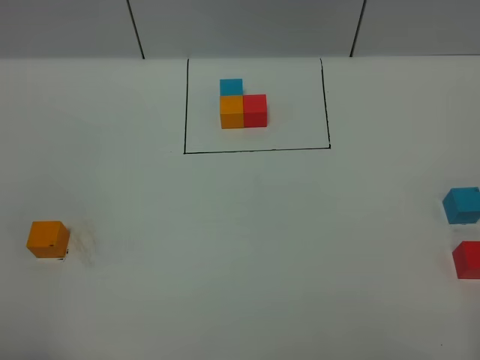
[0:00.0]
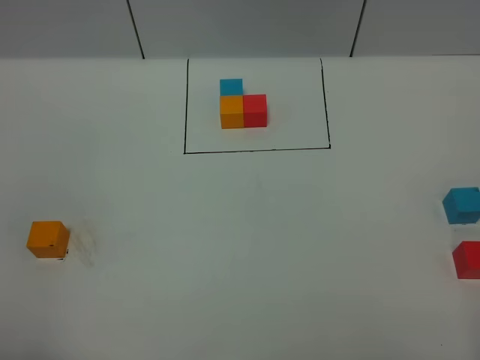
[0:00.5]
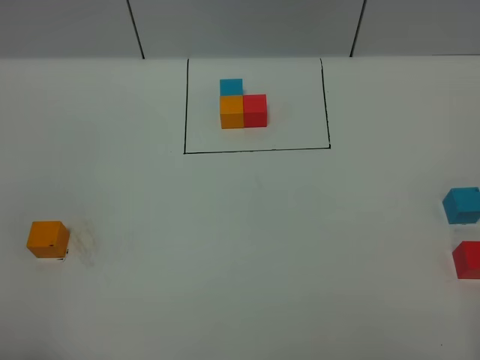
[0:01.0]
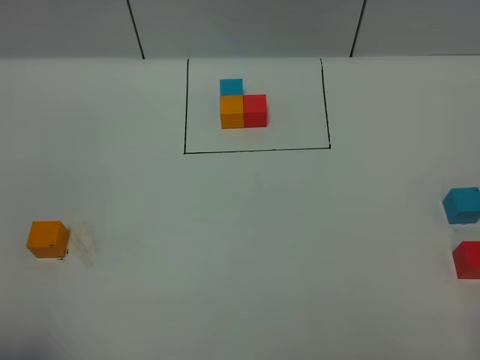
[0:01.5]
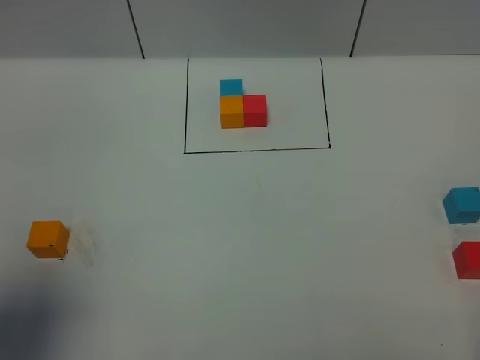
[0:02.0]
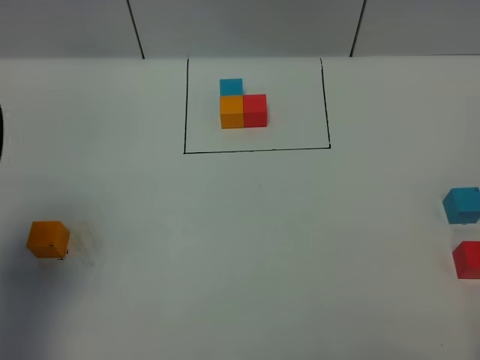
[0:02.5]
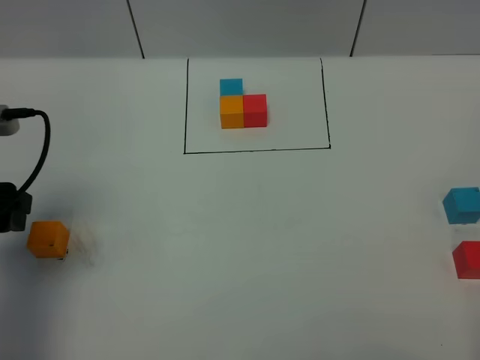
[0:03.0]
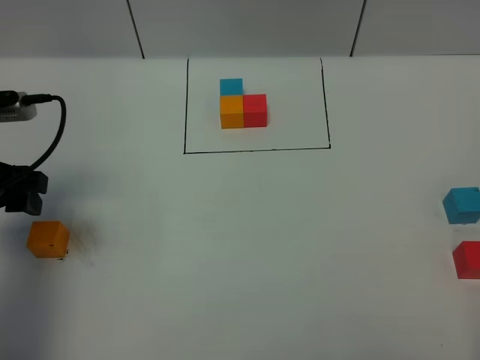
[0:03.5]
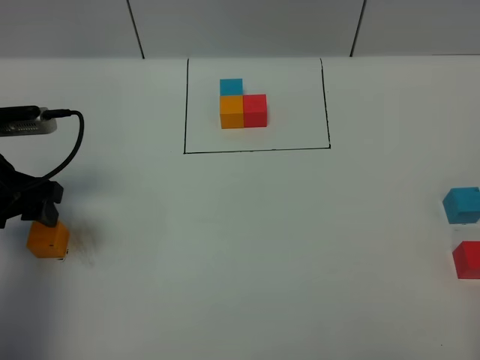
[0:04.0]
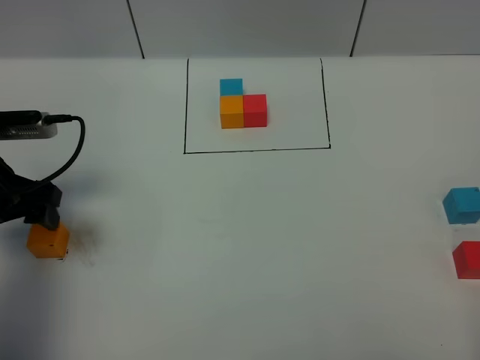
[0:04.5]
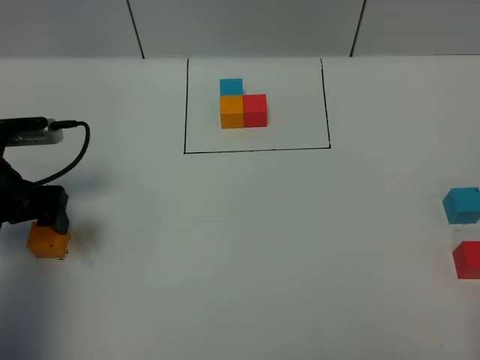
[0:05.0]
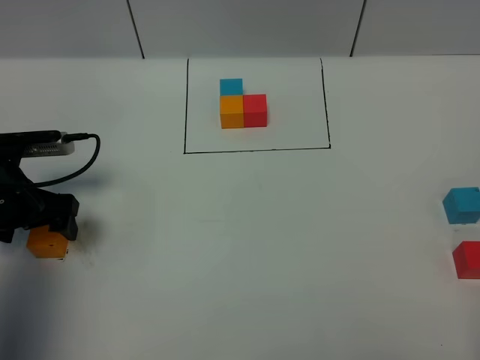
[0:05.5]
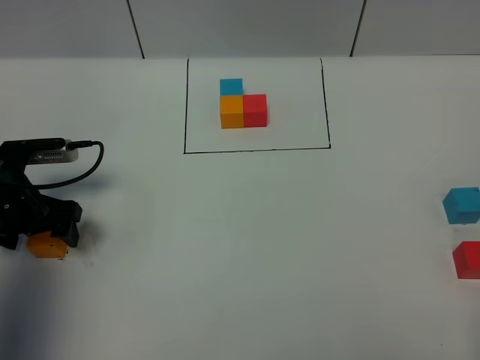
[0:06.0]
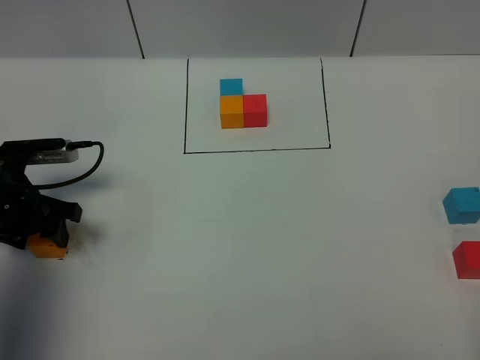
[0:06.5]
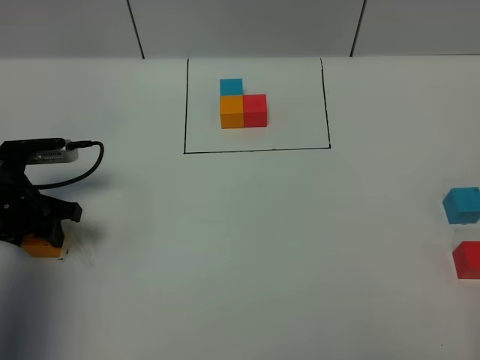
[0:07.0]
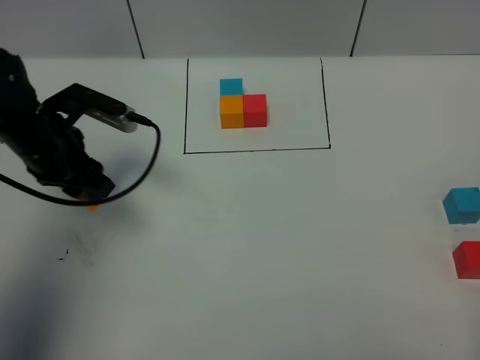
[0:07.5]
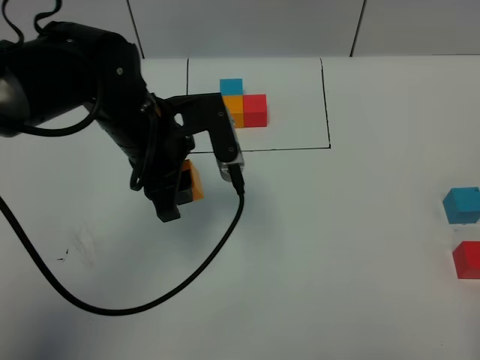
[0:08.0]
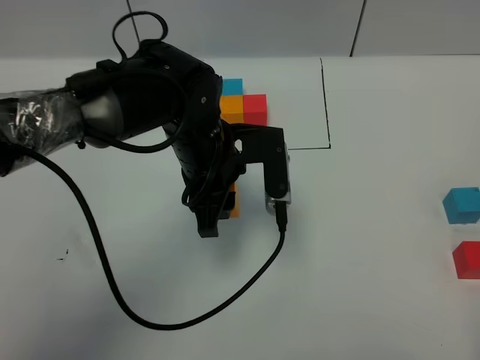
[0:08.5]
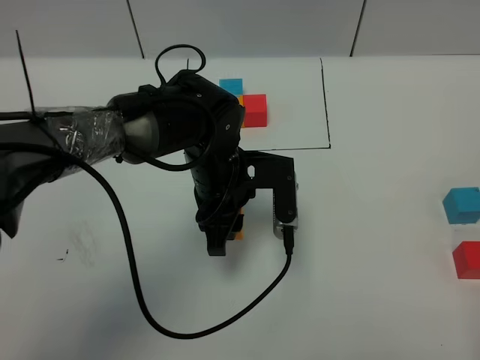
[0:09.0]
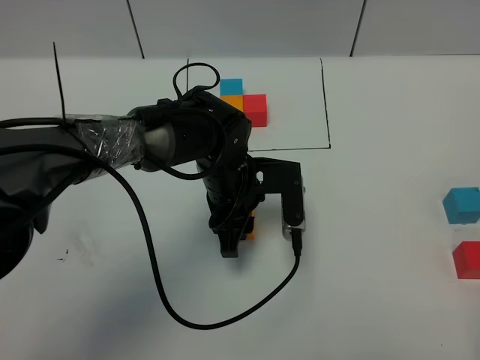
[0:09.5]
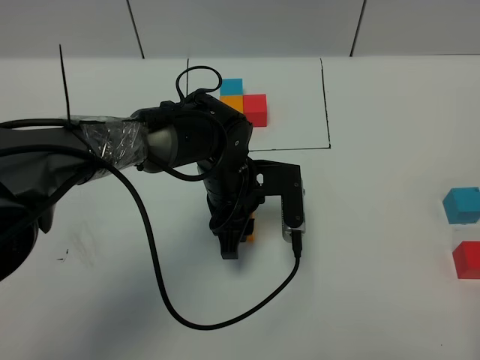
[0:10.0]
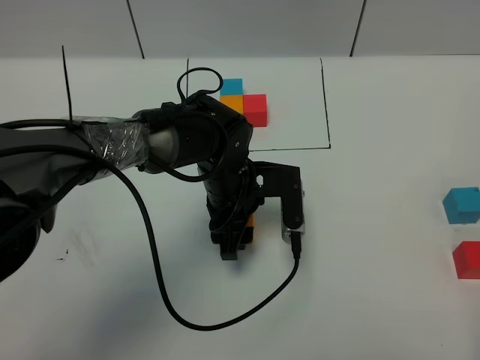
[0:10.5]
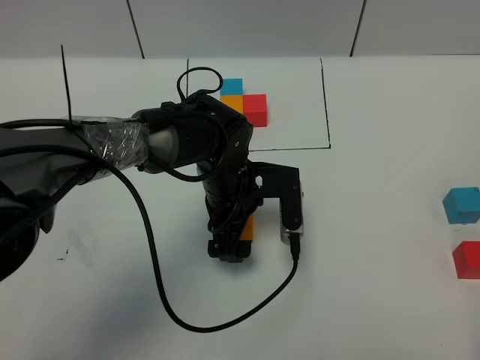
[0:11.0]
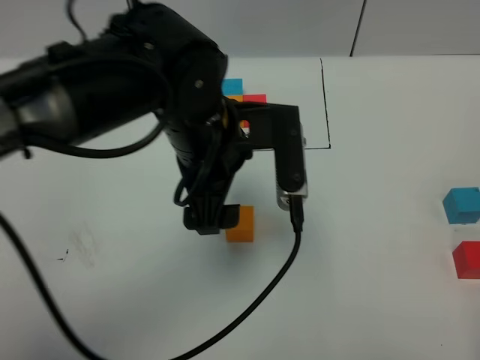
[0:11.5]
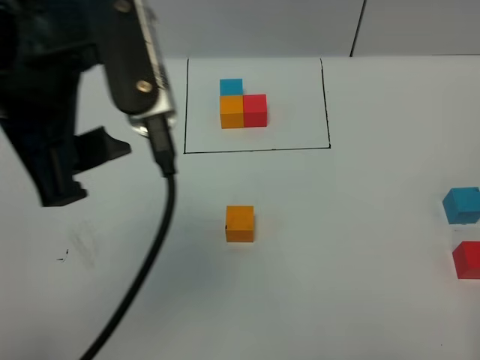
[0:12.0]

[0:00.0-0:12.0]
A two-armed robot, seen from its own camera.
Task of the whole recording: According to the building block template in front, assemble the scattered blocks together.
Step, 0:02.5 to 0:11.0: Put the orange cube in the center of the table.
0:00.0 to 0:02.0: The left gripper is displaced forward and upward by roughly 10 cm.
0:02.0 to 0:04.0: The left gripper travels forward and downward by roughly 20 cm.
0:04.0 to 0:06.0: The left gripper moves downward, about 5 cm, and opens up.
0:06.0 to 0:08.0: The left gripper moves to the right and upward, approximately 20 cm, and closes up.
0:08.0 to 0:10.0: The left gripper moves downward and to the right, roughly 15 cm.
0:10.0 to 0:12.0: The left gripper goes approximately 35 cm upward and backward, and opens.

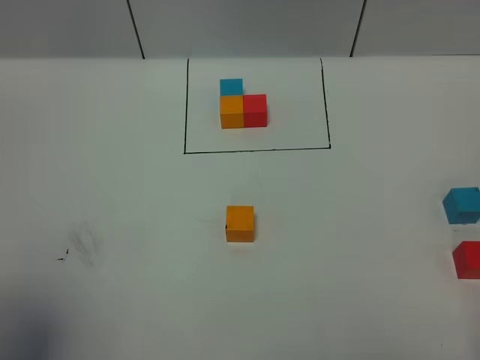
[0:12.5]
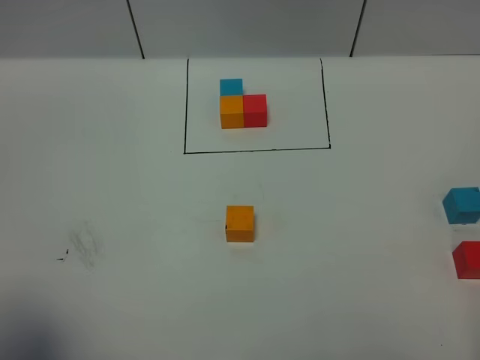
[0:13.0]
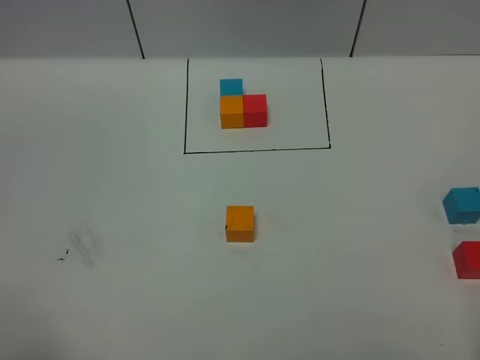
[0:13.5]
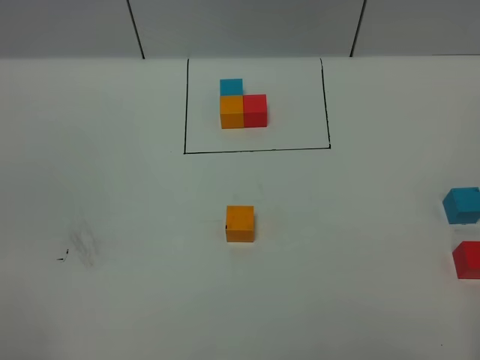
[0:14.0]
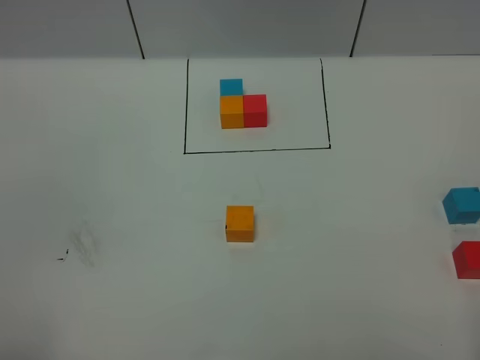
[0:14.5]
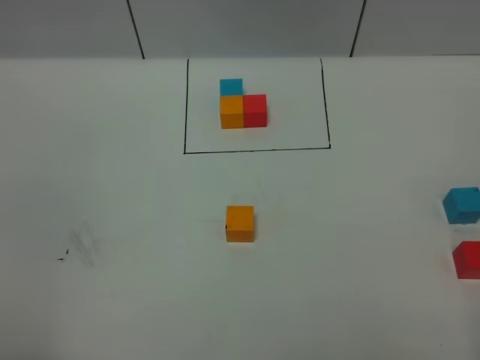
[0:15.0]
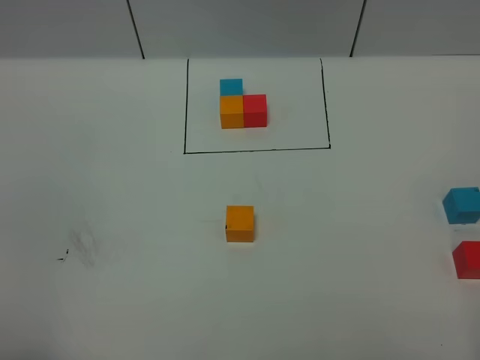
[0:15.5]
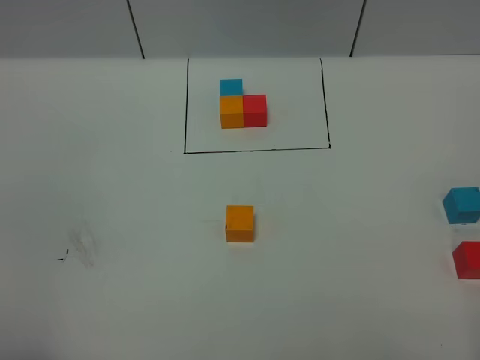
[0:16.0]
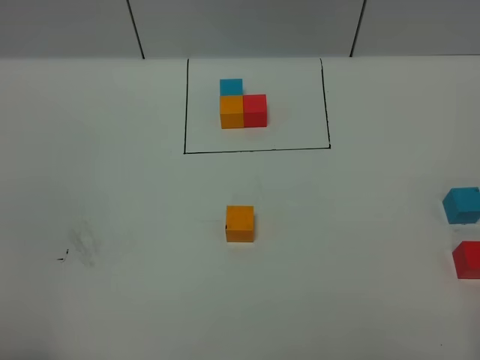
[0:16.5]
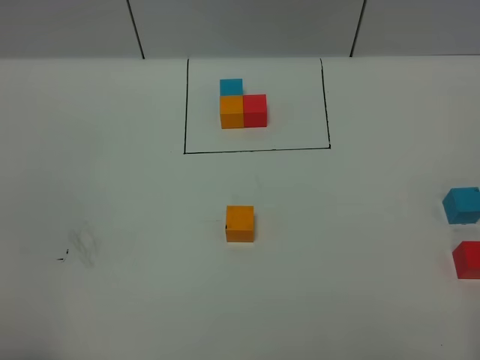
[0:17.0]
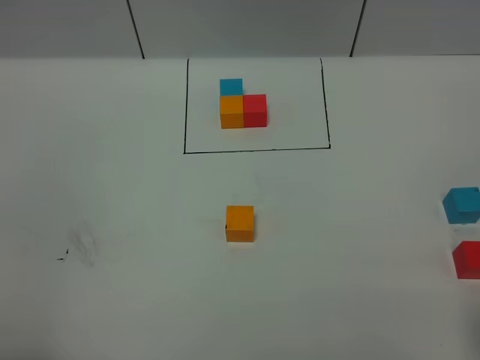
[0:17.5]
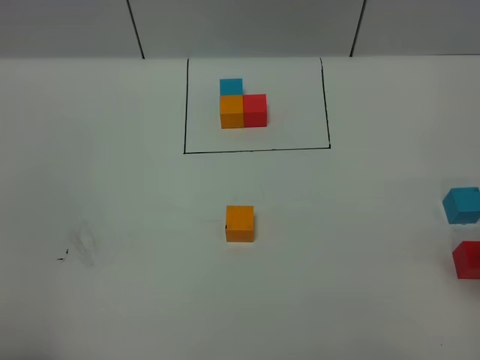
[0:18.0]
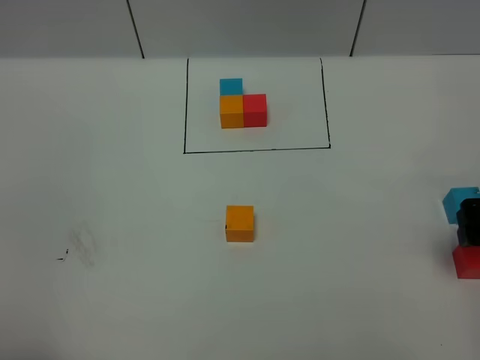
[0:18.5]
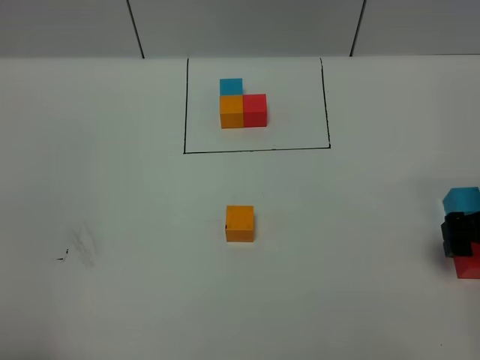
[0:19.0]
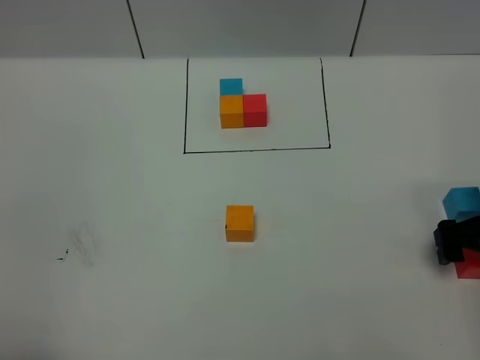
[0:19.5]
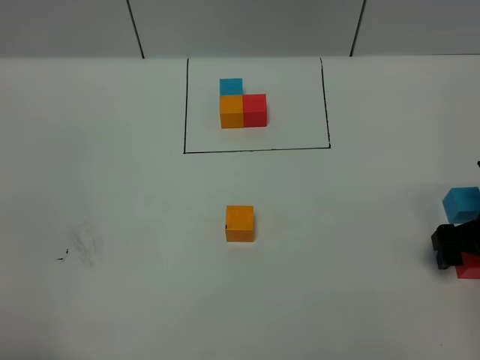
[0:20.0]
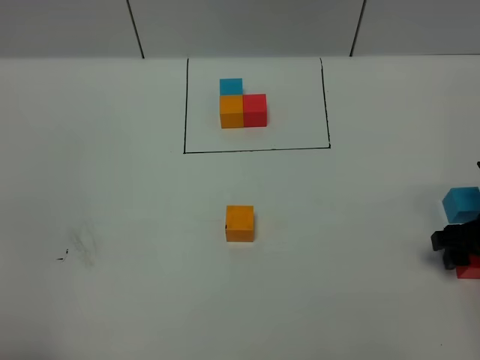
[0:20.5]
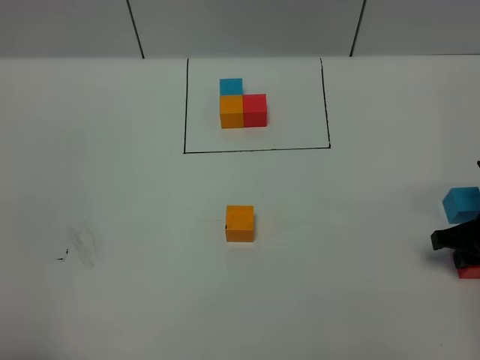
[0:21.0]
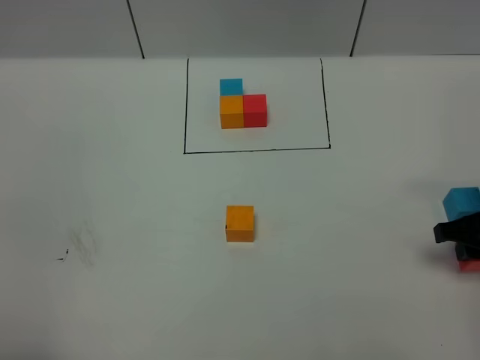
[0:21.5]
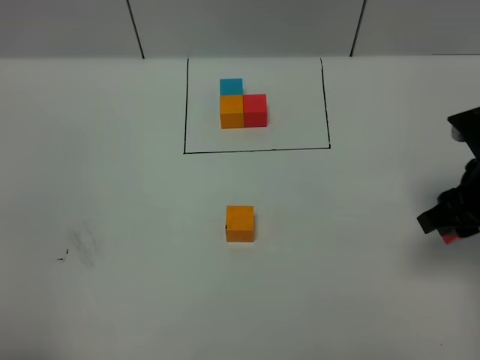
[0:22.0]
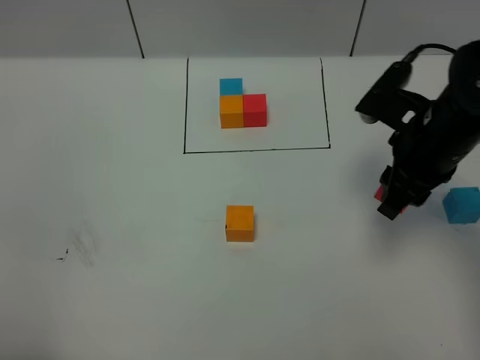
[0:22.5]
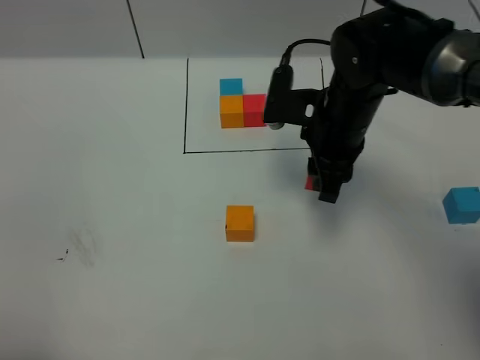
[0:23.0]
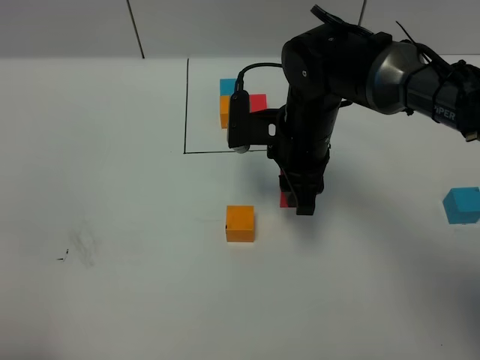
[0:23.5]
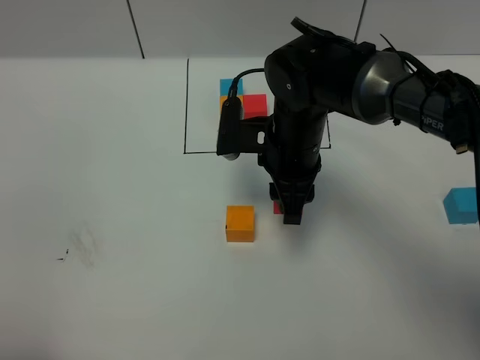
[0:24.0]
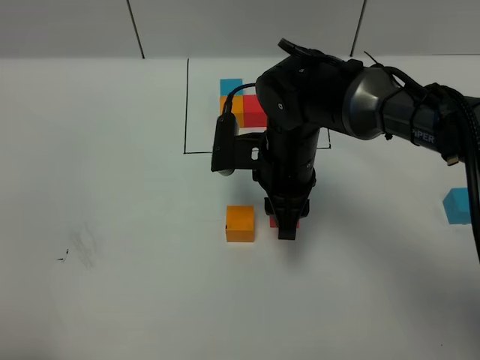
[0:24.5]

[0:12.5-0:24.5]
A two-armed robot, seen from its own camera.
Task of the whole recording: According to the building block template in front, assemble the scattered blocks together.
0:12.5 to 0:14.5: The left gripper goes about 20 cm downward.
0:16.5 to 0:18.5: The right gripper moves forward, approximately 25 cm.
0:18.5 to 0:20.5: The right gripper travels downward by roughly 5 cm, and closes its fingers.
0:20.5 to 0:22.5: The right gripper heads to the left and upward, covering some 15 cm, and closes its fingers.
0:22.5 to 0:24.5: The right gripper heads to the left, covering about 15 cm.

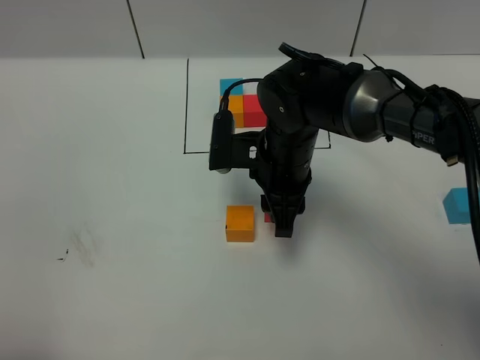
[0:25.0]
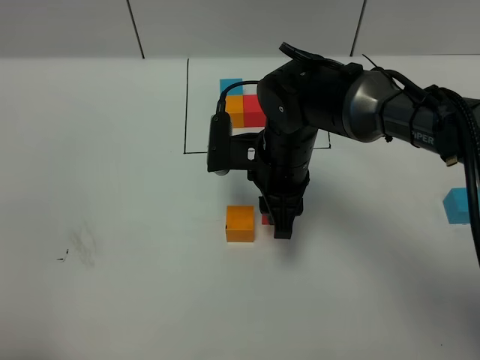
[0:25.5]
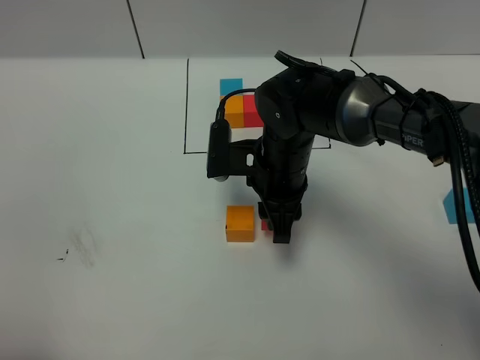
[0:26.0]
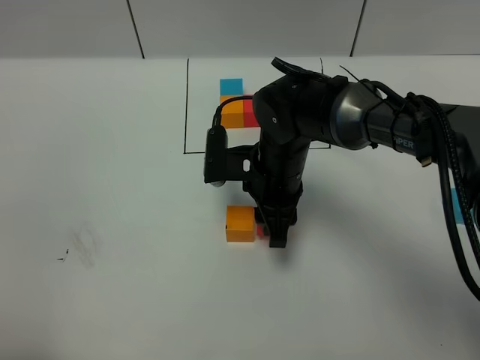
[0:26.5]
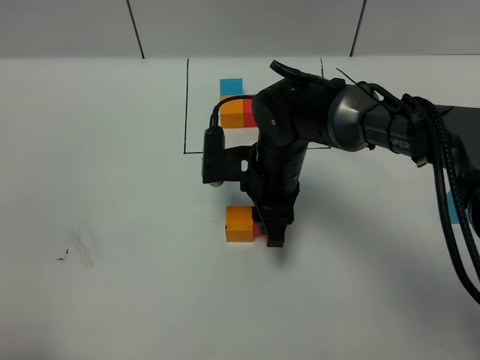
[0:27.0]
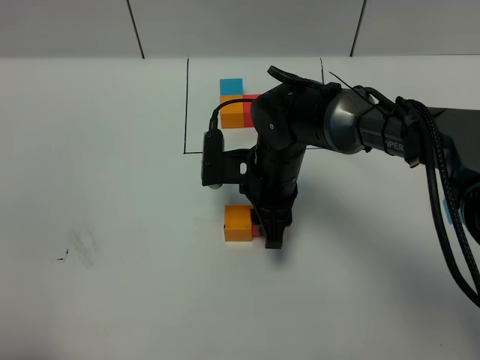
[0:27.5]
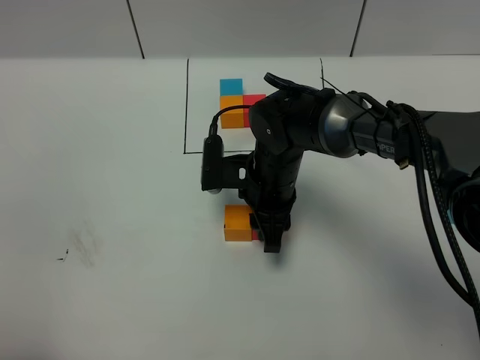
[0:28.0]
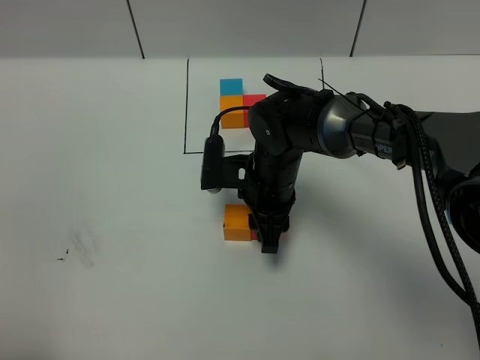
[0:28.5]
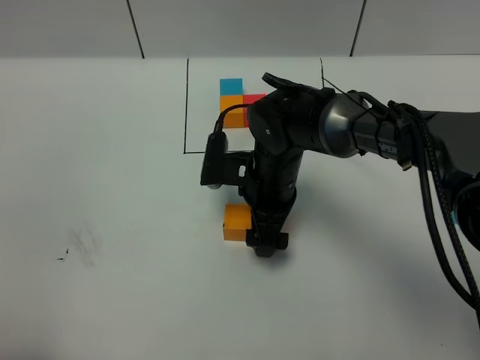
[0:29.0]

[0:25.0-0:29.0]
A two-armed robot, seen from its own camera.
Task of the whole recording: According to the building block template in front, assemble the scattered blocks together.
0:25.0 to 0:27.0: The grippers stay close to where they were, moving slightly.
0:27.0 to 0:29.0: The right gripper opens up.
